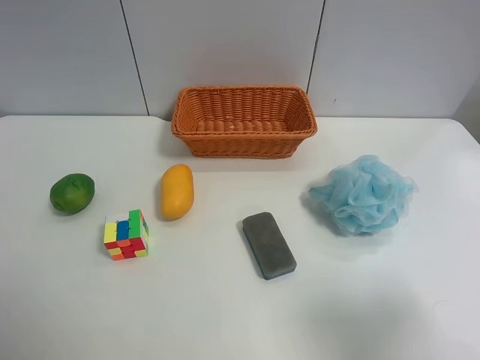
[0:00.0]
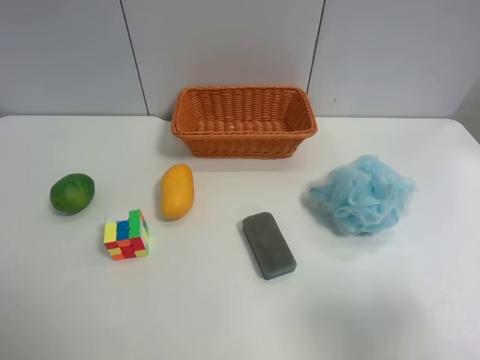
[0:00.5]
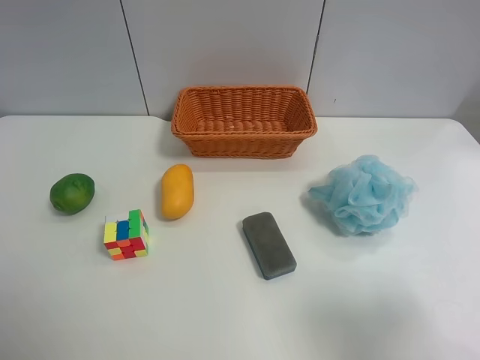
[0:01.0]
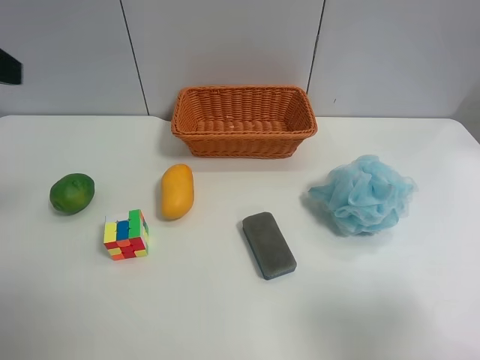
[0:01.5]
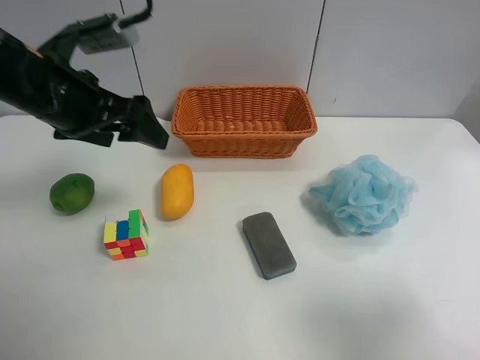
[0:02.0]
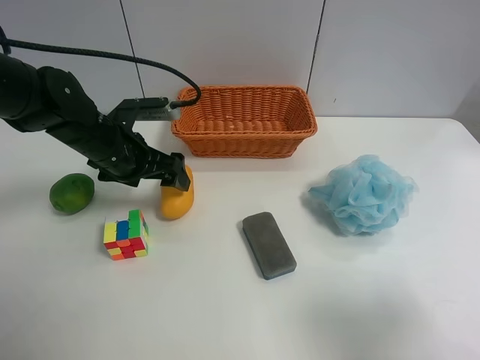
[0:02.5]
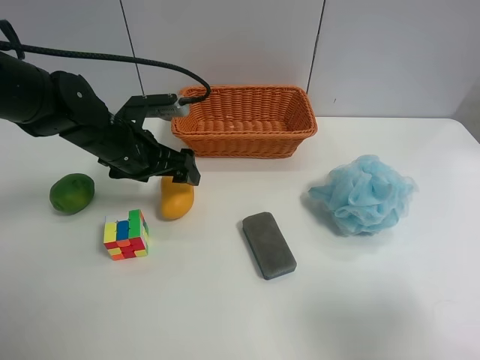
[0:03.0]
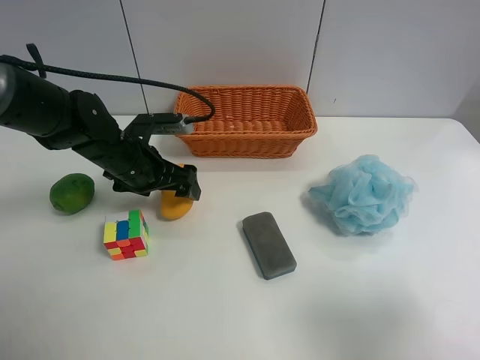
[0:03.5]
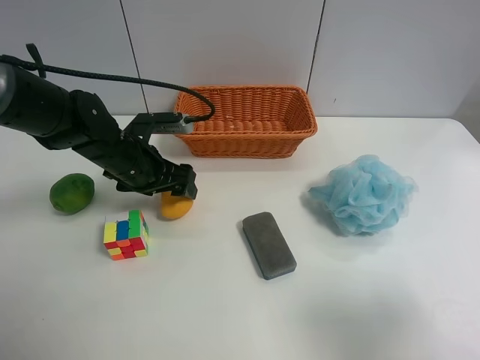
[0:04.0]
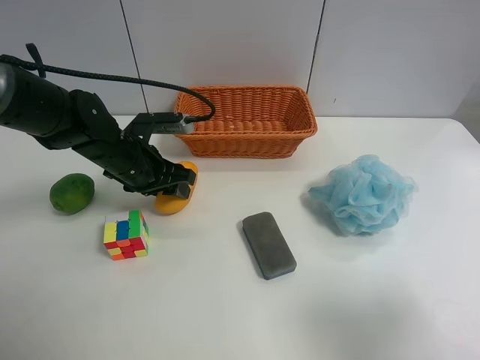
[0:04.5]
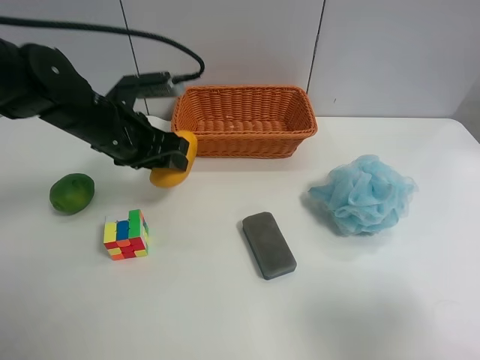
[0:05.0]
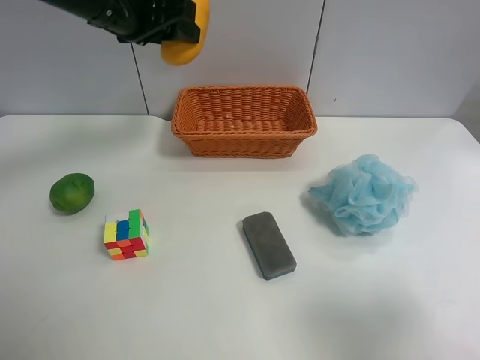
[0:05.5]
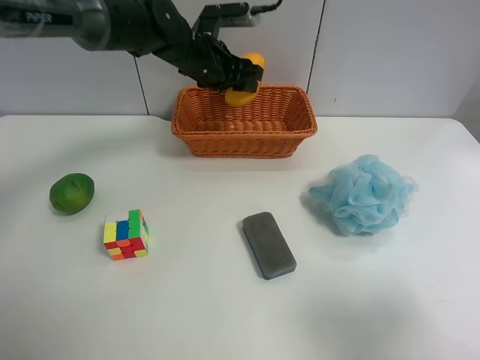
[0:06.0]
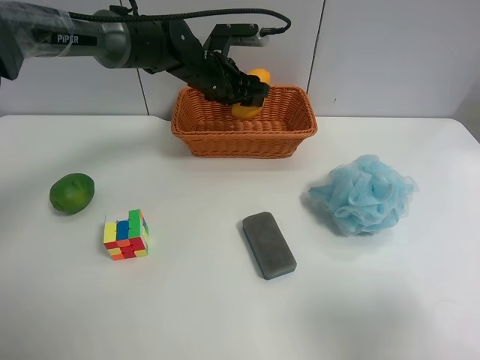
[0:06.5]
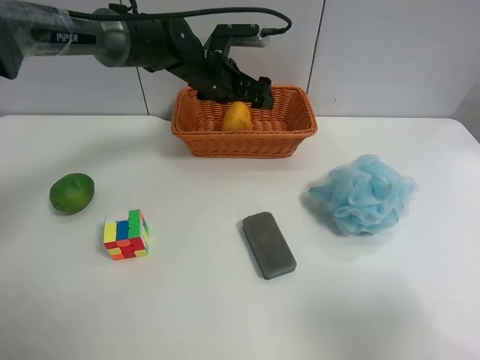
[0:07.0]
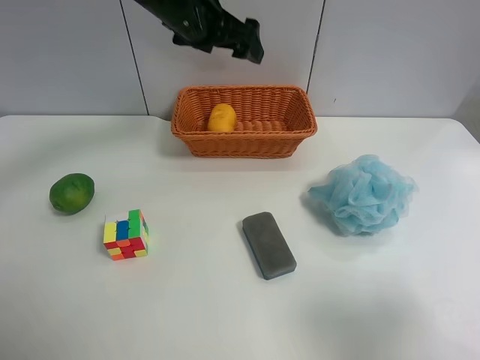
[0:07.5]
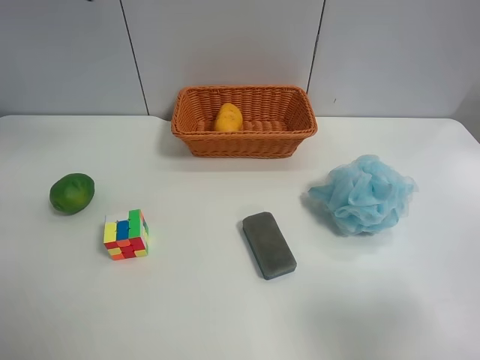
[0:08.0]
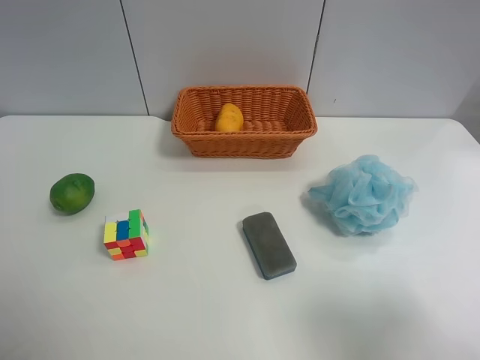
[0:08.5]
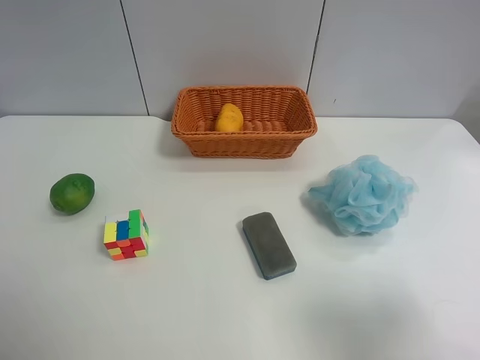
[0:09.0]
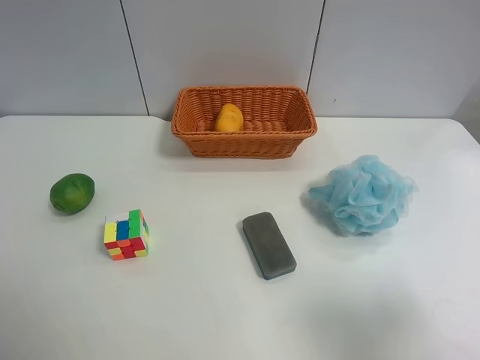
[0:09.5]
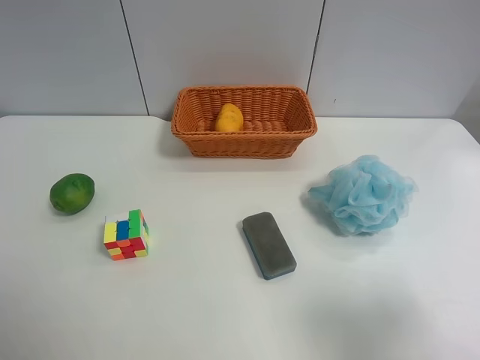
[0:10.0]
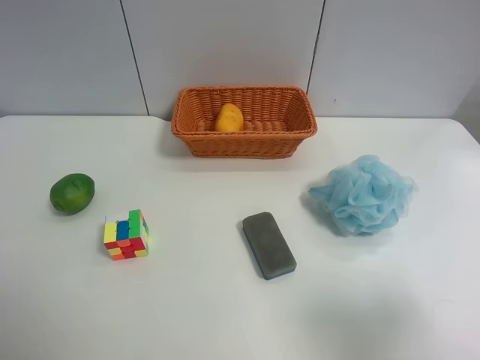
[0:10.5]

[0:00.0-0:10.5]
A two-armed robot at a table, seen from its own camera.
Task of the whole recording: Randomly grab green lemon or mangoes from the table and put them in a basket.
Step, 0:00.0 to 0:04.5: Grasp the mango with the left gripper.
Step, 0:05.0 to 0:07.0: Place the mango into the basket with the left gripper.
0:00.0 to 0:02.0: The left gripper goes about 30 cm forward and to the right.
0:02.0 to 0:04.0: The left gripper travels downward by about 15 cm, and closes up.
0:04.0 to 0:06.5: The left gripper heads forward and to the right, covering about 15 cm, goes upward and returns, about 20 cm each way, and closes its fingers.
0:06.5 to 0:08.5: The left gripper heads backward, upward and to the left, covering about 50 cm, and opens its fingers.
